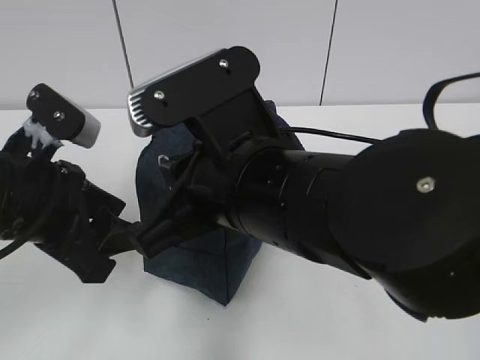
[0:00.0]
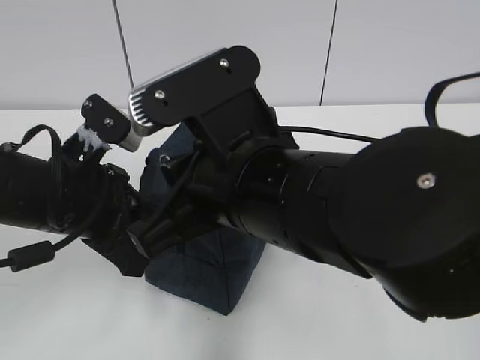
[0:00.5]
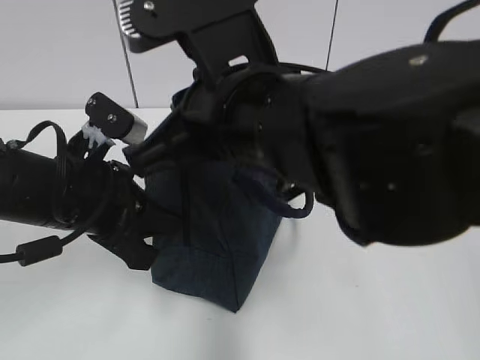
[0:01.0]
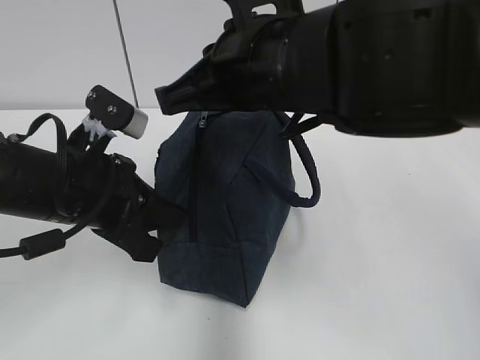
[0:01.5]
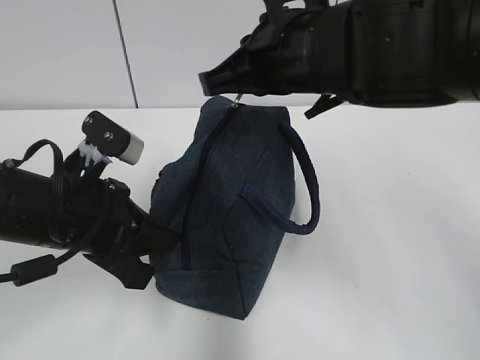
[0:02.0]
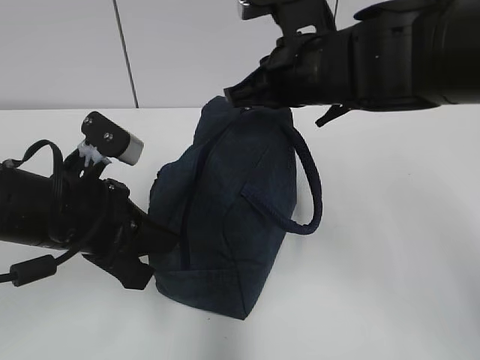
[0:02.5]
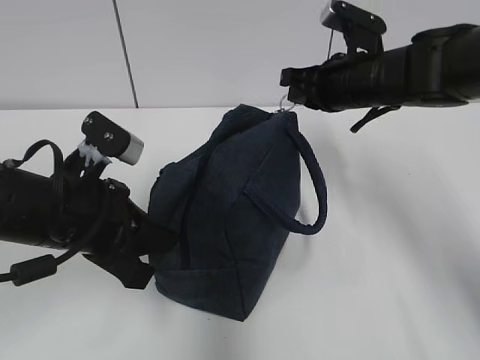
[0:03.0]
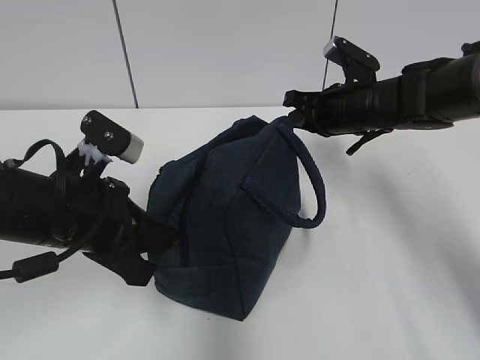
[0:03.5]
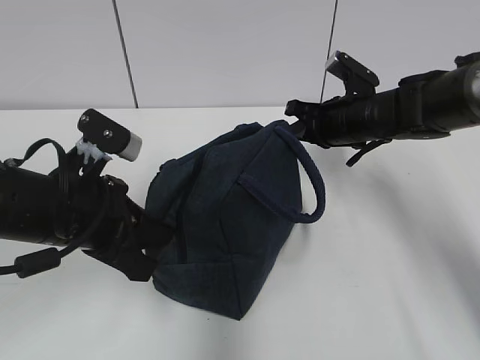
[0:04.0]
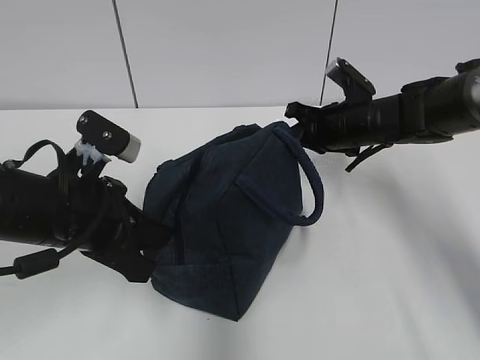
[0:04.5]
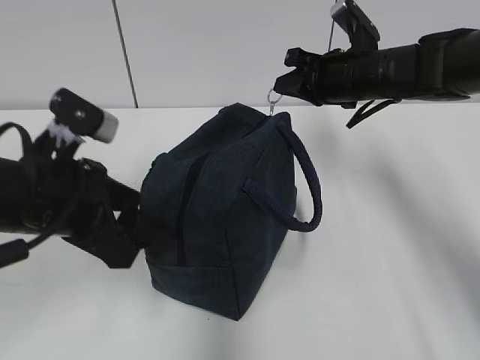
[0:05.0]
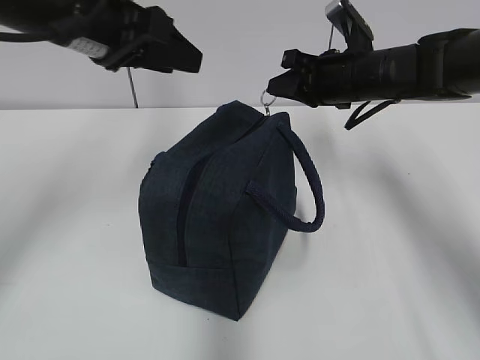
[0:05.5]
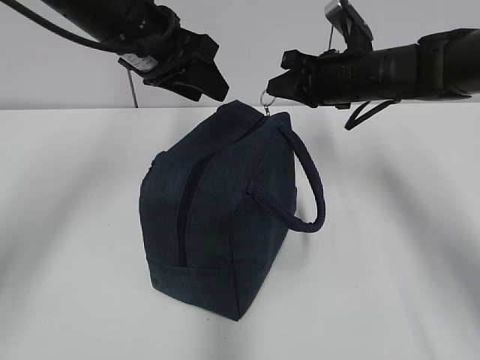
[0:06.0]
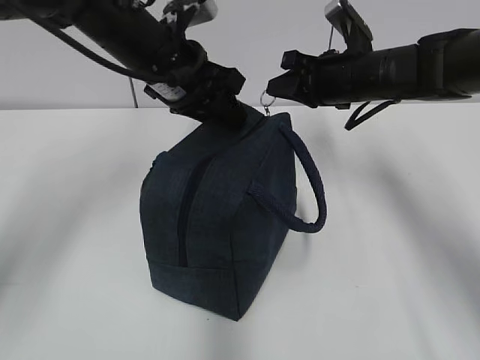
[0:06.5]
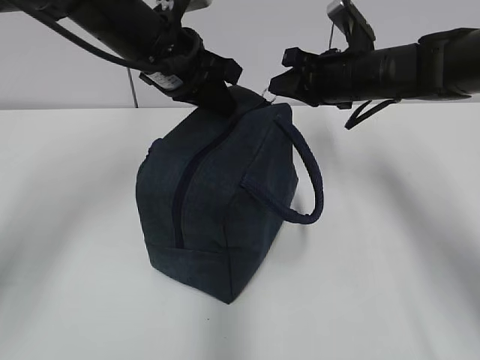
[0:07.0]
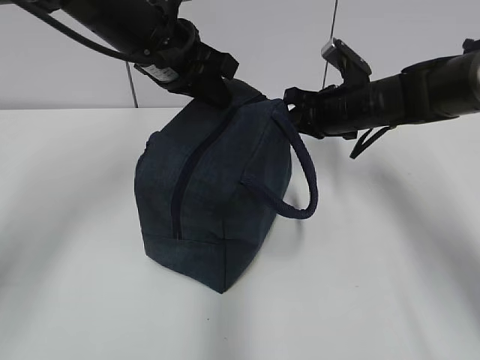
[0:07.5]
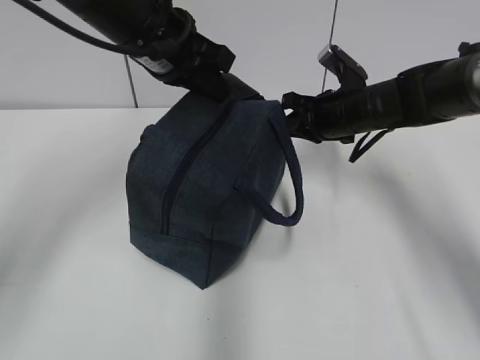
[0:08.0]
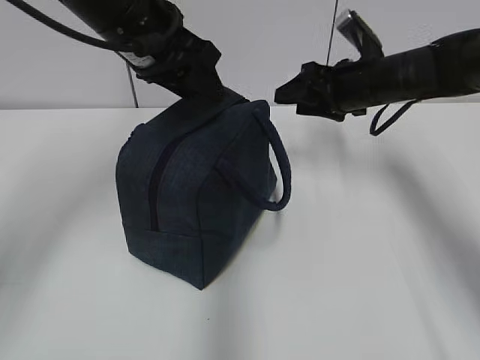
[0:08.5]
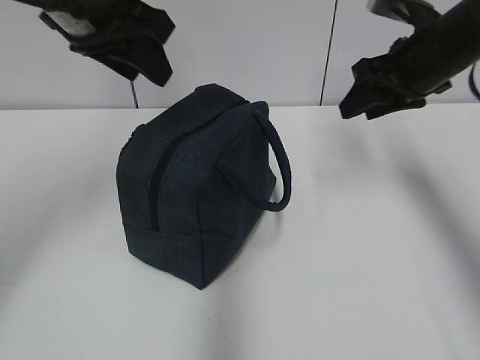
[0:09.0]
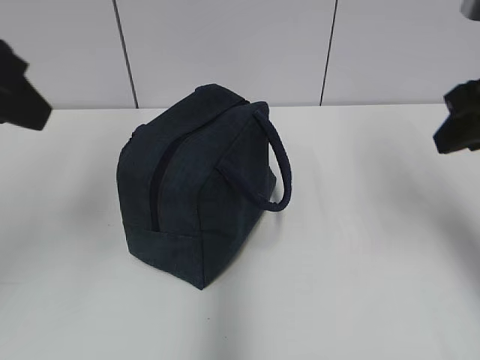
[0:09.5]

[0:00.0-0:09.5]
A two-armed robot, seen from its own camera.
0:00.0 to 0:02.0: The left gripper closes its fingers; the right gripper is displaced forward by roughly 10 cm.
0:02.0 to 0:04.0: The right gripper heads downward, forward and to the right, covering approximately 25 cm.
0:04.0 to 0:05.5: The right gripper goes roughly 5 cm upward. The left gripper heads upward and forward, covering approximately 15 cm, and opens.
0:05.5 to 0:07.5: The right gripper moves roughly 5 cm. Meanwhile the left gripper is displaced forward and to the right by approximately 5 cm, and closes.
0:07.5 to 0:09.5: The left gripper heads backward, to the left and upward, covering approximately 25 cm, and opens up; the right gripper goes some 25 cm backward, upward and to the right, and opens its fingers.
